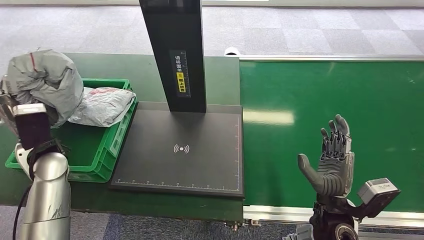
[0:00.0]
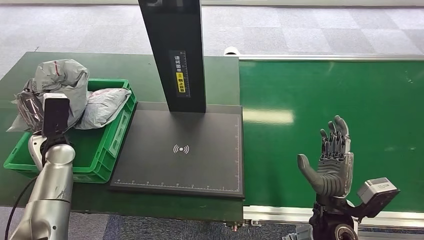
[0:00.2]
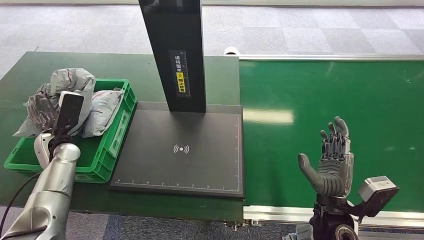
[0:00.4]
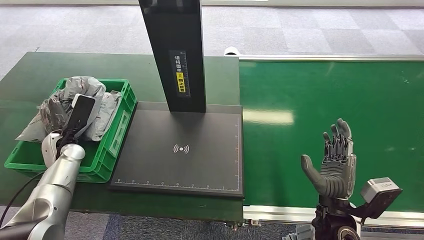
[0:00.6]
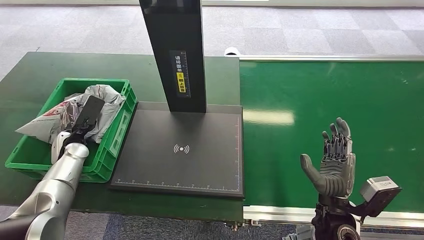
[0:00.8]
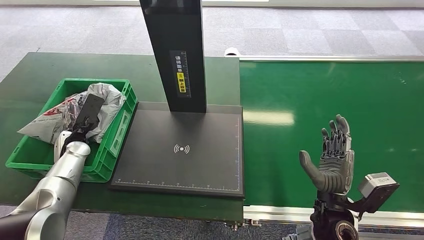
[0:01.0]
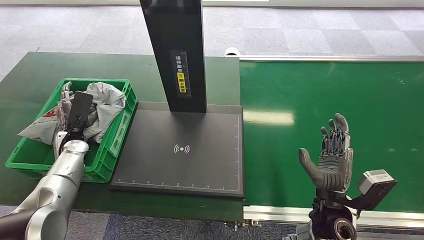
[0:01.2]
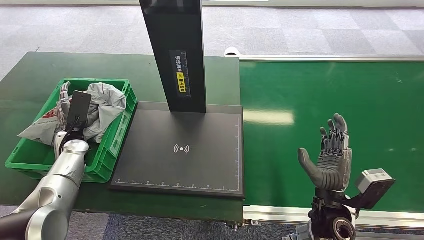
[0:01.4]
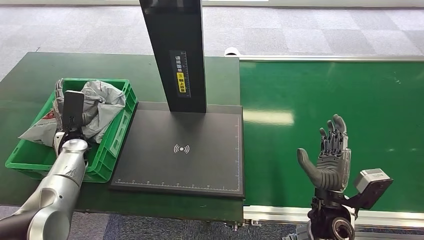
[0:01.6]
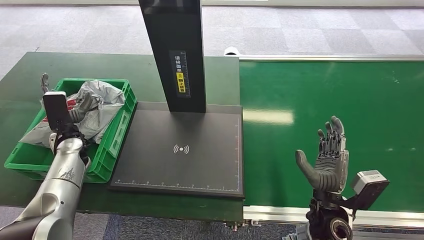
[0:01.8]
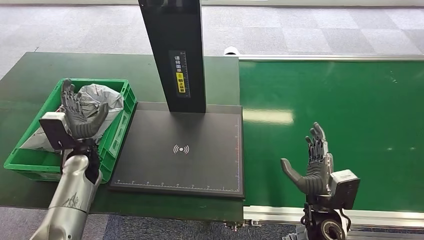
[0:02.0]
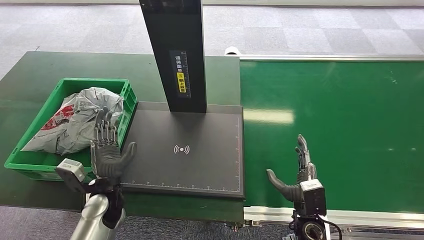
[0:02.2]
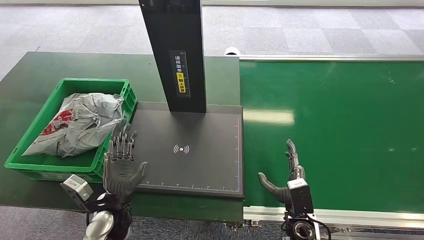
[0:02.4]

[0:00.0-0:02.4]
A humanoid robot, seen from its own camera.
Step, 0:00.0 to 0:02.4: Place the package into the parcel locker.
0:00.0 to 0:01.2: The left hand is displaced downward and forward by roughly 10 cm.
0:01.2 to 0:02.4: The left hand is displaced to the right and backward by approximately 25 cm. Meanwhile the right hand heads downward, covering roughly 10 cm.
